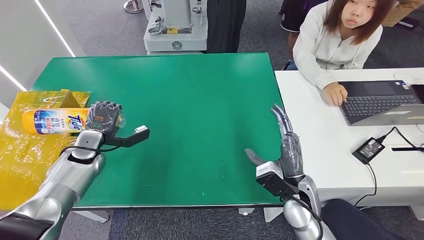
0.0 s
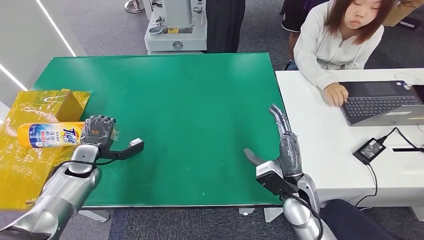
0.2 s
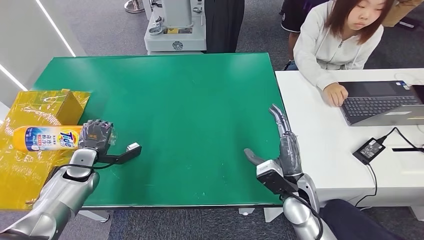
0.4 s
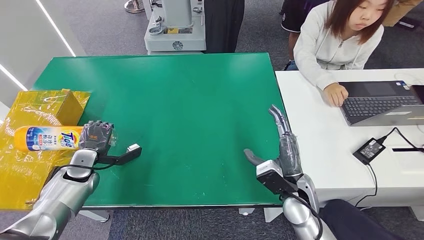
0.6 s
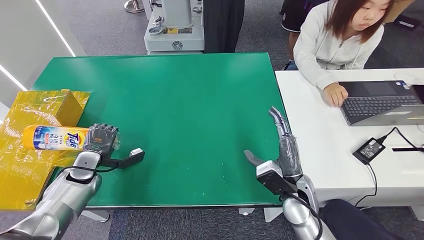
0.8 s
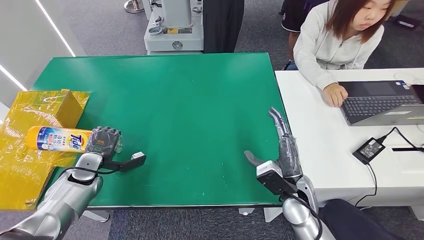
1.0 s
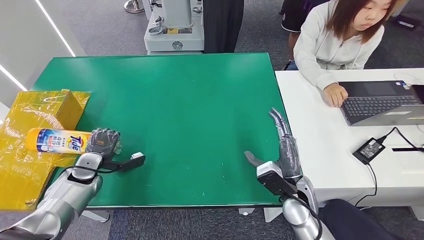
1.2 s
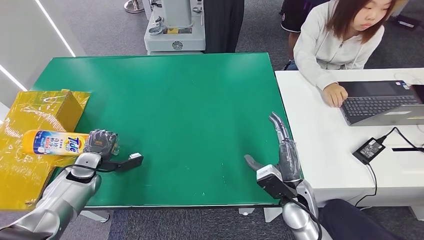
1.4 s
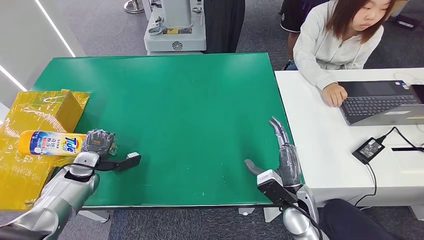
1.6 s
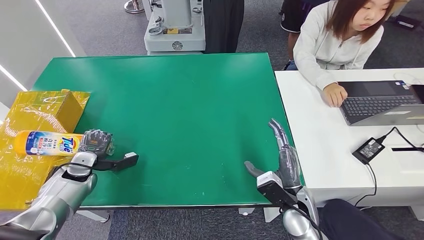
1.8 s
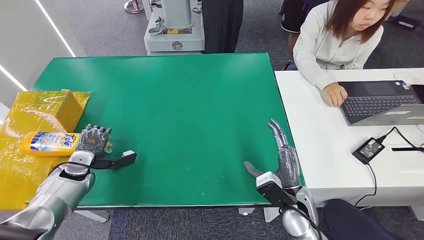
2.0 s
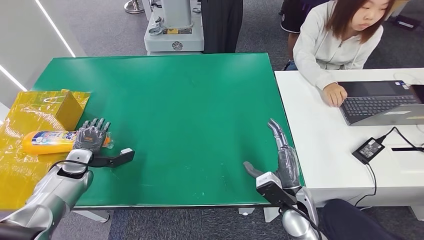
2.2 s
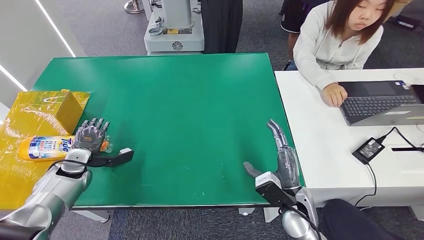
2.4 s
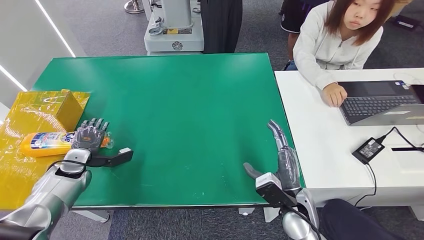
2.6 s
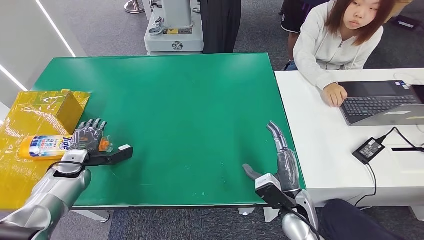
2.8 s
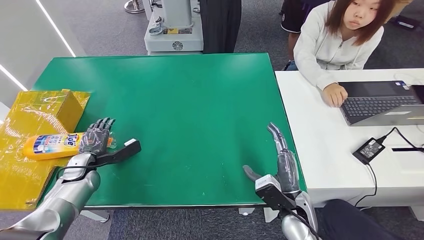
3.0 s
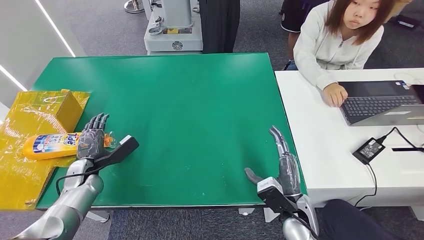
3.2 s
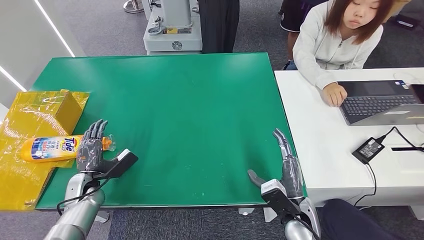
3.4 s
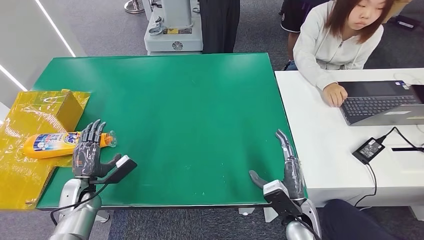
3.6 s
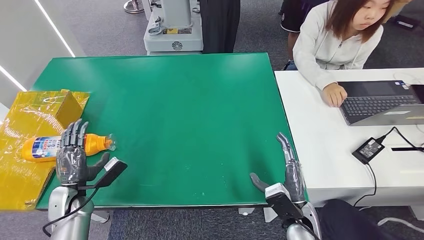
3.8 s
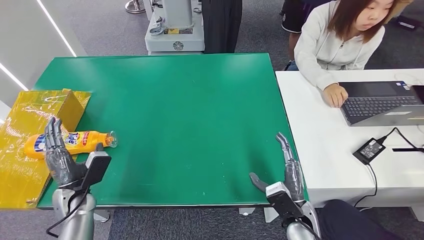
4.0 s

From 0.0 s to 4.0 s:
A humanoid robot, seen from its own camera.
Step, from 0.0 s to 4.0 s: Turn the bottle to the front side.
From 0.0 s to 1.4 s: The left hand is displaced downward by approximately 5 cm.
From 1.4 s to 2.6 s: There are only small adjustments of the hands.
From 2.6 s to 4.0 s: The left hand goes about 10 cm backward and to the right.
